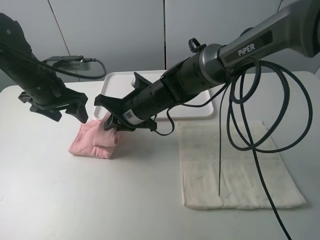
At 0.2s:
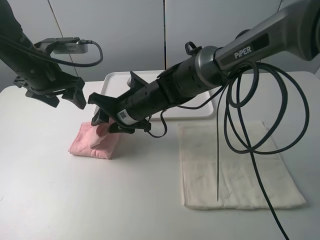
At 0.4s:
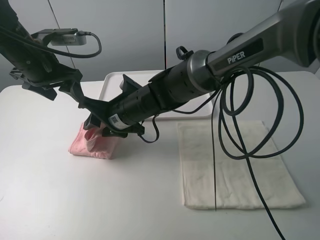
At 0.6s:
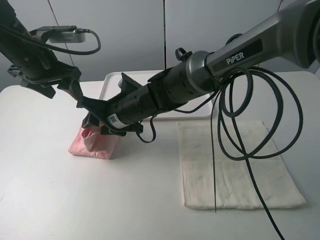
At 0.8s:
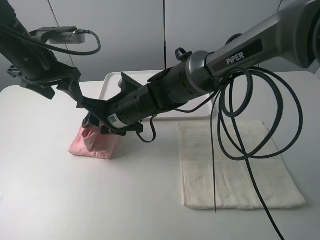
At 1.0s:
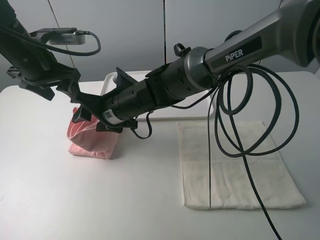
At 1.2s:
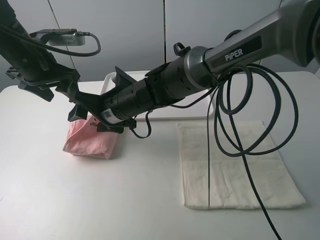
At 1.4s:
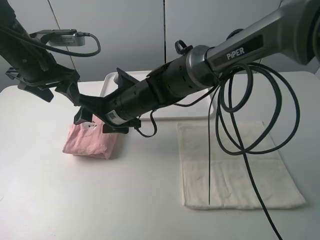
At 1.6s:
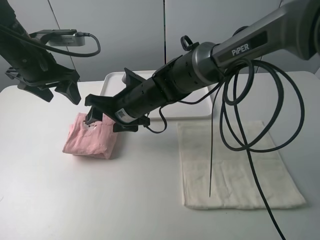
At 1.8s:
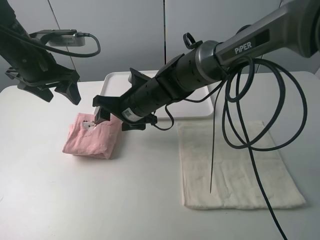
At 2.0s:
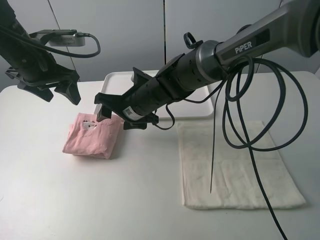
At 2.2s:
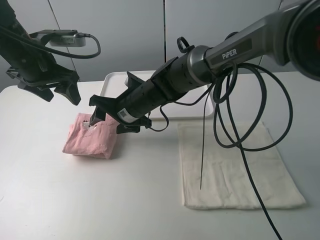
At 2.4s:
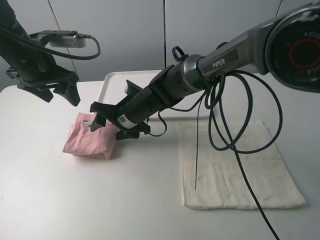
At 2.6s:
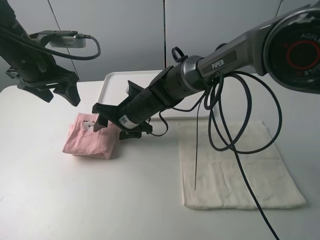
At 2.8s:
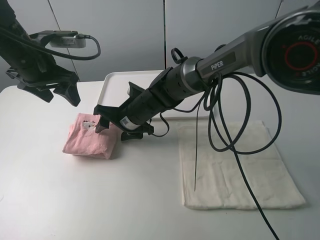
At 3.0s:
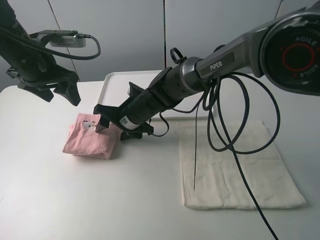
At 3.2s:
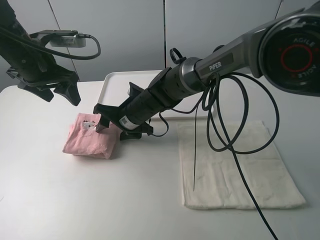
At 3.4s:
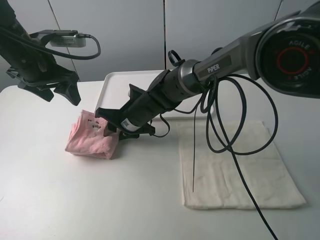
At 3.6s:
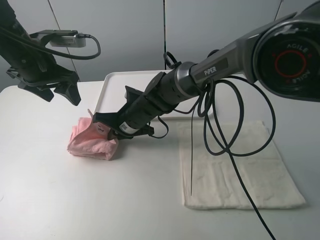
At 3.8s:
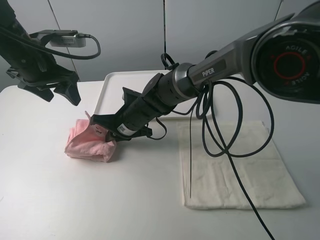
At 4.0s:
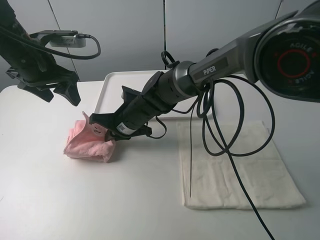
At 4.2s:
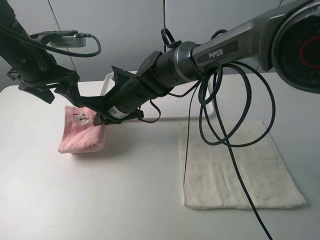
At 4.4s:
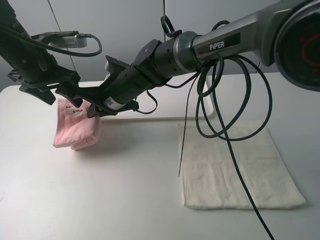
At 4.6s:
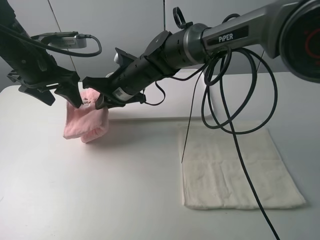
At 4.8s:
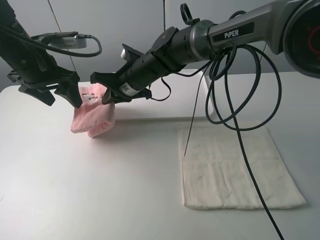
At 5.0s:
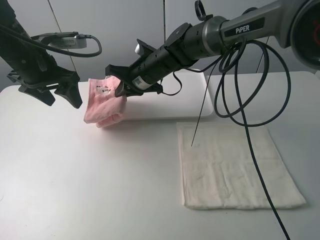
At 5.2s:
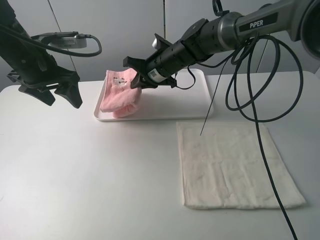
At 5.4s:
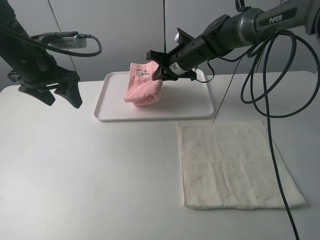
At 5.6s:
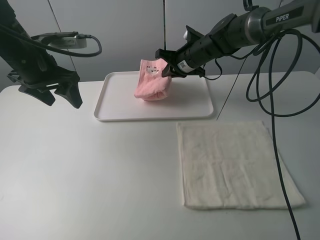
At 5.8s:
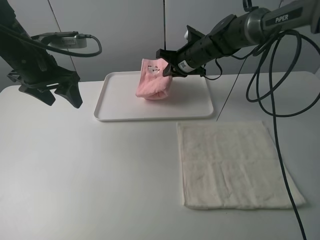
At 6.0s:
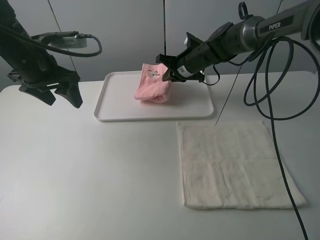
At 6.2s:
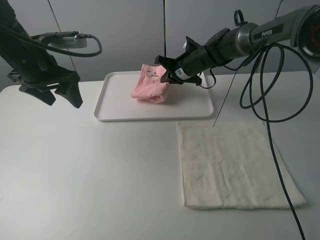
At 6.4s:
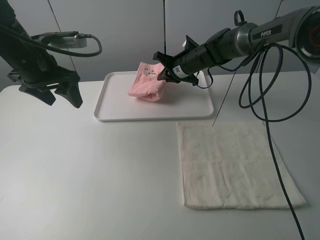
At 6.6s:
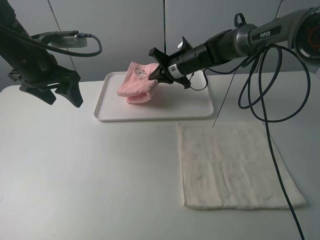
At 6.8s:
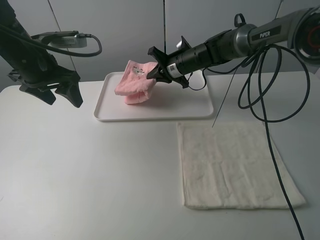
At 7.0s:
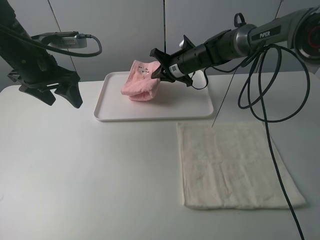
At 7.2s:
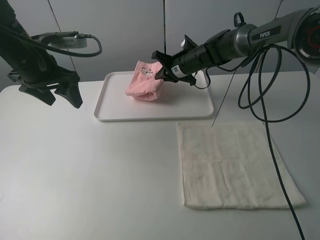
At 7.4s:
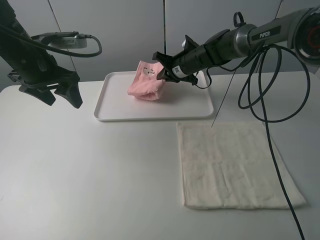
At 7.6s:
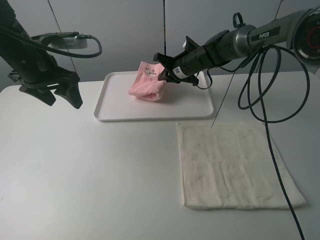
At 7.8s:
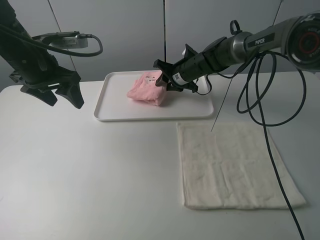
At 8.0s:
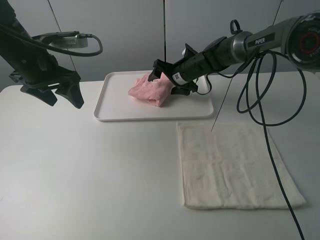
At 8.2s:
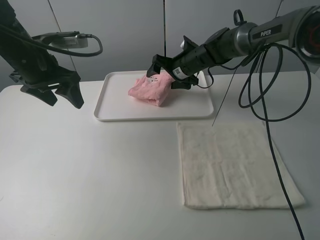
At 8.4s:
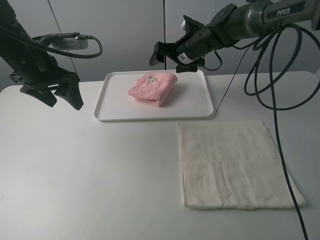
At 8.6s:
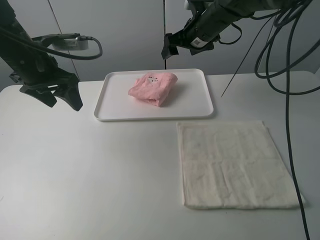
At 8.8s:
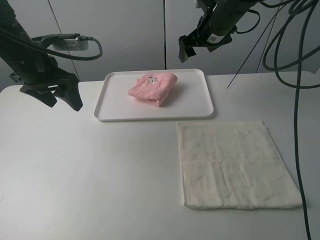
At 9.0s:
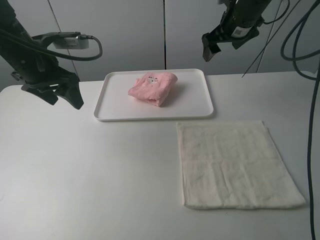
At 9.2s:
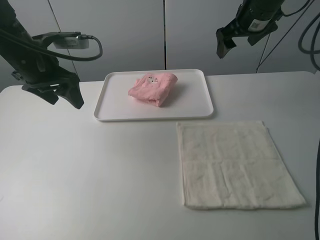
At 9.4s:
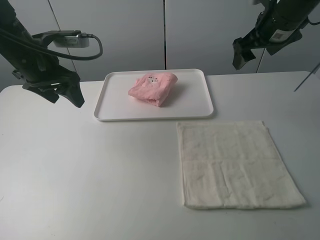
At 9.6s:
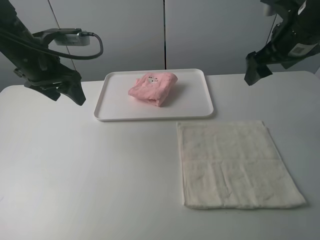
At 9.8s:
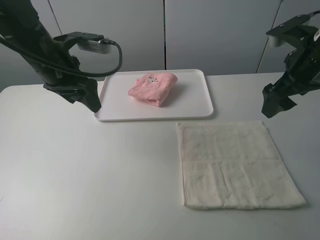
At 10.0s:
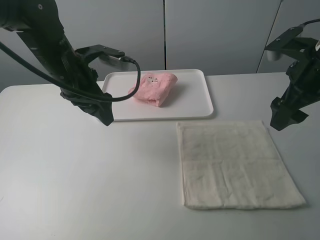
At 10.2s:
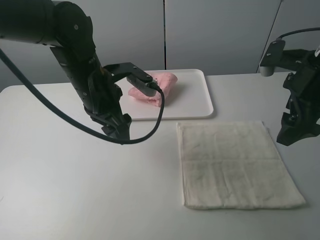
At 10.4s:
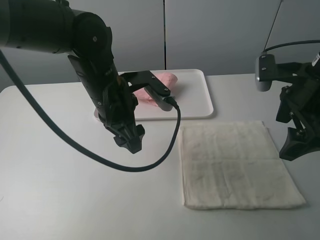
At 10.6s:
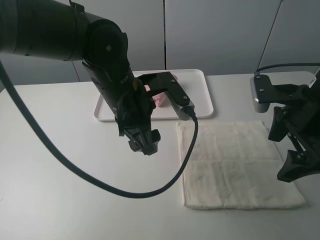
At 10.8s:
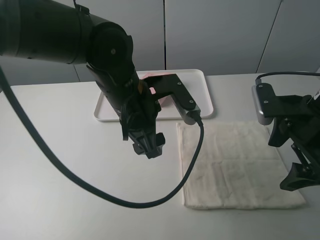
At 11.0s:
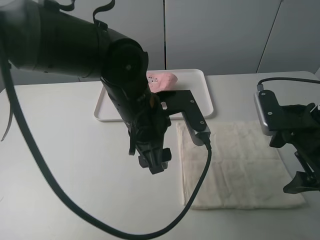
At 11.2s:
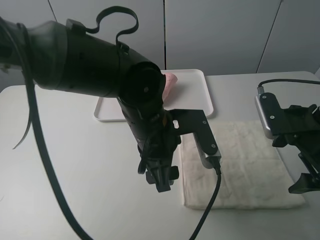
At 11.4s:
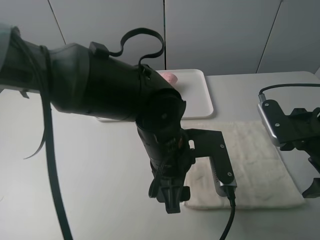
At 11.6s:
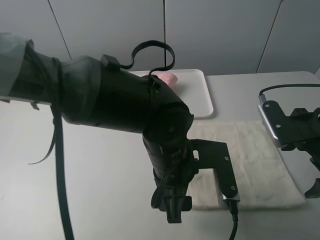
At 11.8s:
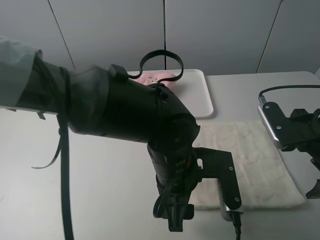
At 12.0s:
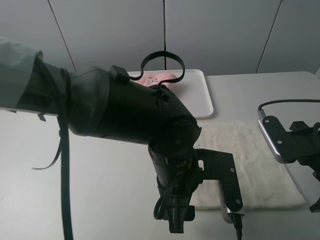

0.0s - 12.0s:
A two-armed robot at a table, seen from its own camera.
Task of the whole recording: fold one of the towels by two grippers and place it on the tray,then fold another towel by two grippers and place it on the folded towel.
Step, 1.4s - 3.6s: Grasp the pink towel with the right gripper.
Step, 3.8s - 8.4s: Move the pink towel to the plate with the right gripper.
0.0s - 1.6s: The right gripper opens.
1.6s - 3.0s: The right gripper moves some 5 cm.
3.0s - 4.4s: The right gripper travels upward by about 5 cm, and closes its fingers.
4.4s - 6.0s: The right gripper is displaced to the right and forward by approximately 20 cm.
6.0s - 7.6s: The grippers make only small movements.
7.6s - 9.0s: The right gripper shifts about 20 cm upward and to the right, and opens.
9.0s - 10.4s: The right gripper travels backward by approximately 20 cm. Meanwhile the left gripper is displaced to the right by roughly 15 cm.
10.4s - 12.0s: The right gripper shifts approximately 10 cm backward and downward. Meanwhile the left gripper moves to the right, backward and downward, roughly 15 cm.

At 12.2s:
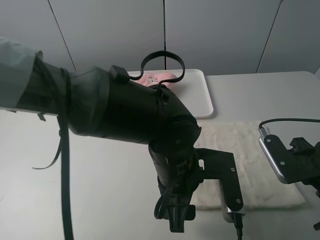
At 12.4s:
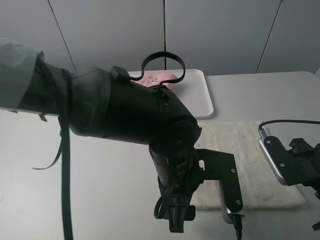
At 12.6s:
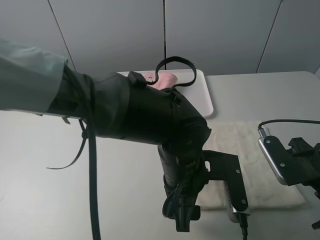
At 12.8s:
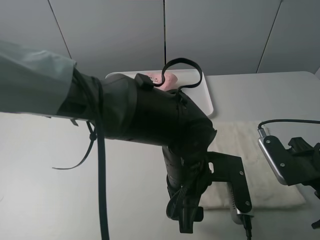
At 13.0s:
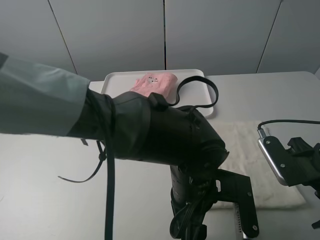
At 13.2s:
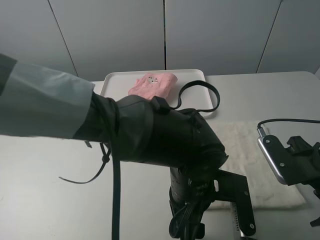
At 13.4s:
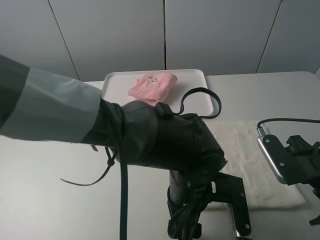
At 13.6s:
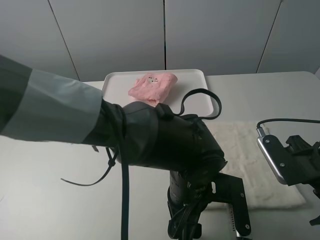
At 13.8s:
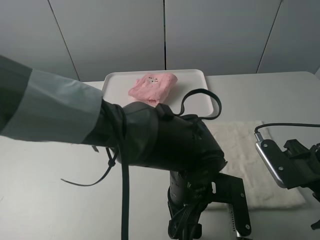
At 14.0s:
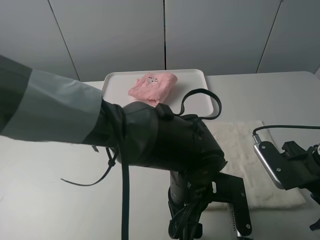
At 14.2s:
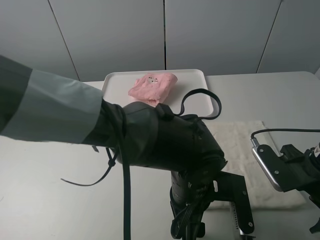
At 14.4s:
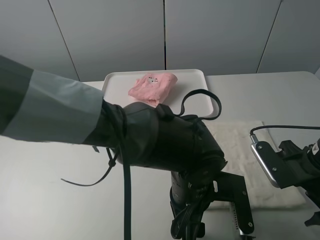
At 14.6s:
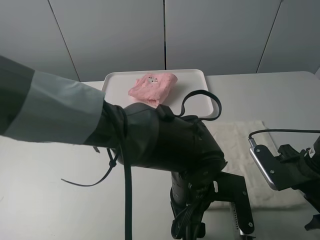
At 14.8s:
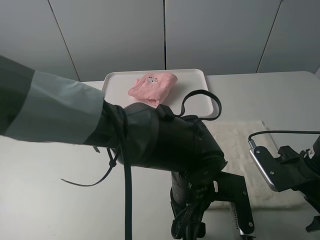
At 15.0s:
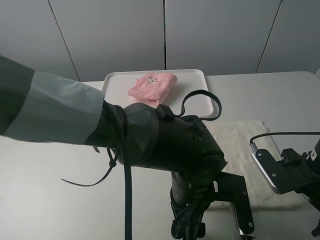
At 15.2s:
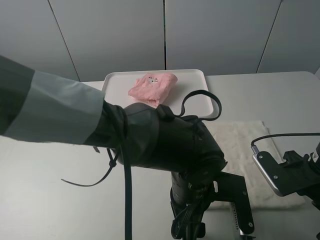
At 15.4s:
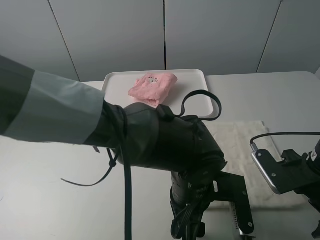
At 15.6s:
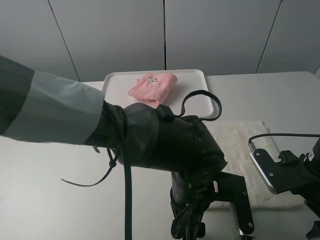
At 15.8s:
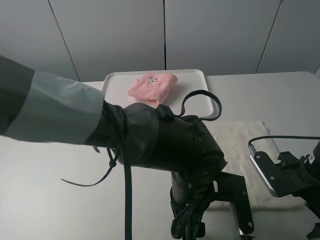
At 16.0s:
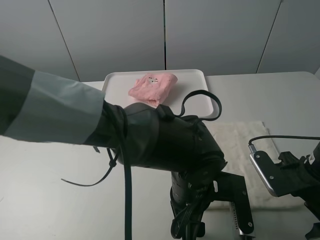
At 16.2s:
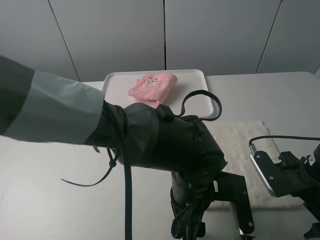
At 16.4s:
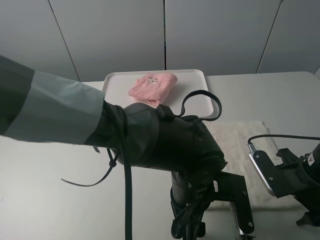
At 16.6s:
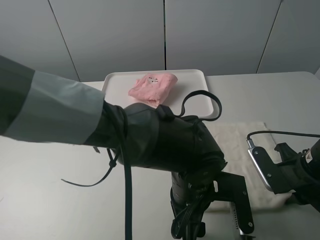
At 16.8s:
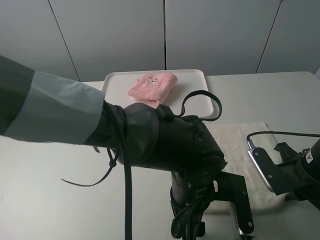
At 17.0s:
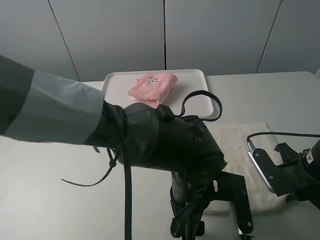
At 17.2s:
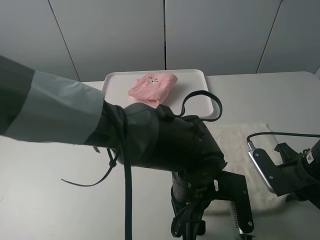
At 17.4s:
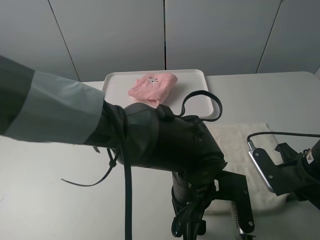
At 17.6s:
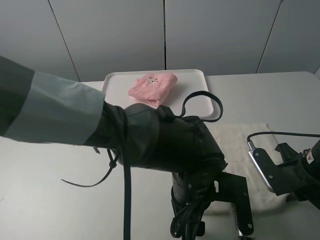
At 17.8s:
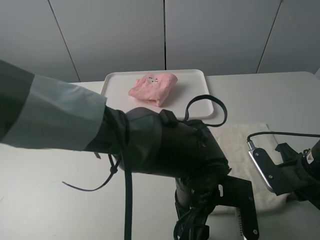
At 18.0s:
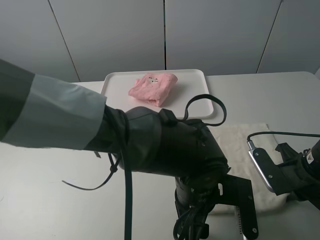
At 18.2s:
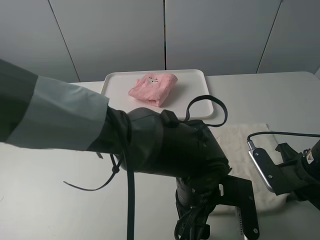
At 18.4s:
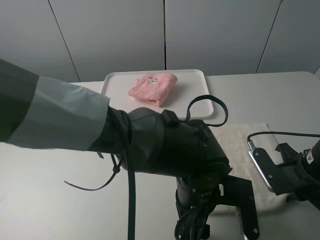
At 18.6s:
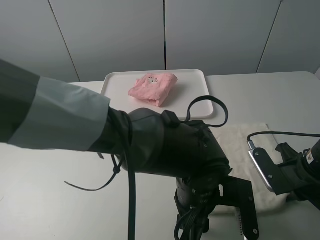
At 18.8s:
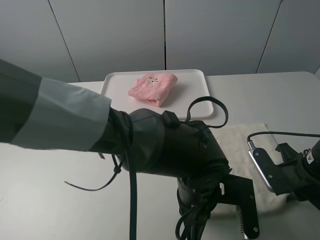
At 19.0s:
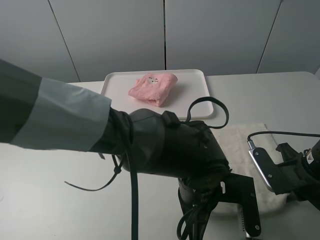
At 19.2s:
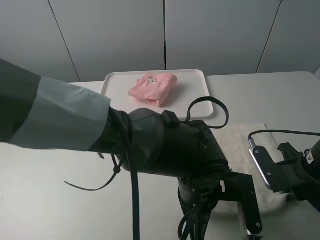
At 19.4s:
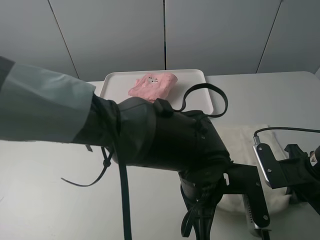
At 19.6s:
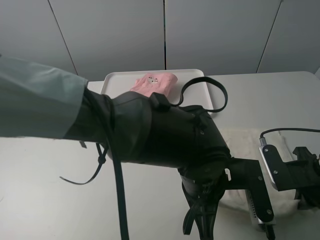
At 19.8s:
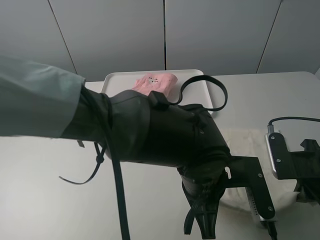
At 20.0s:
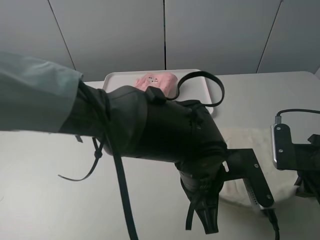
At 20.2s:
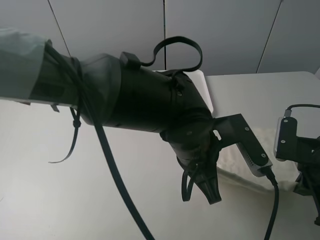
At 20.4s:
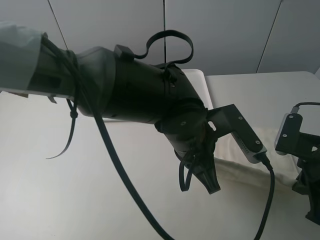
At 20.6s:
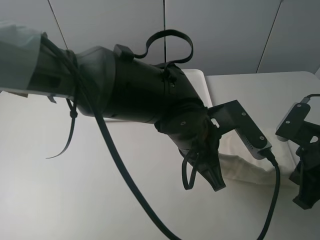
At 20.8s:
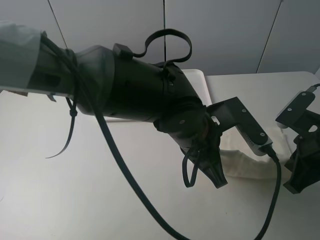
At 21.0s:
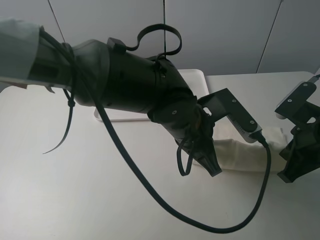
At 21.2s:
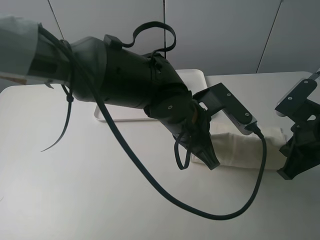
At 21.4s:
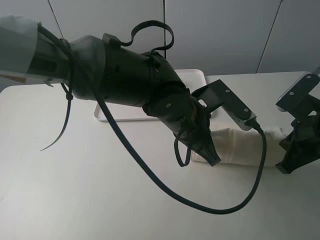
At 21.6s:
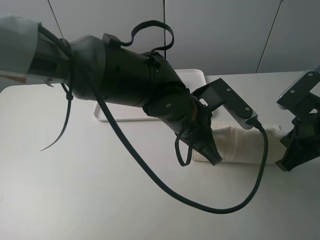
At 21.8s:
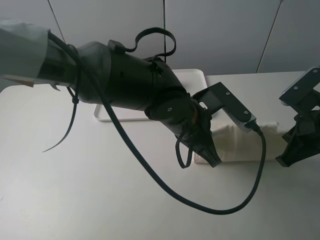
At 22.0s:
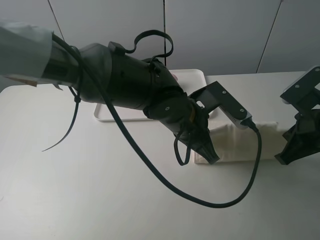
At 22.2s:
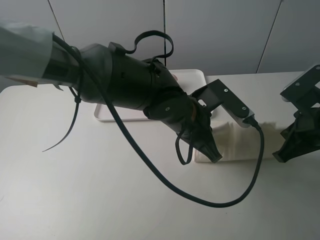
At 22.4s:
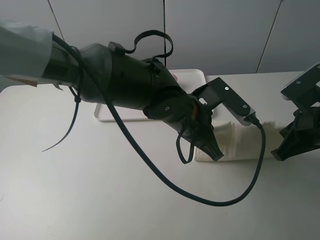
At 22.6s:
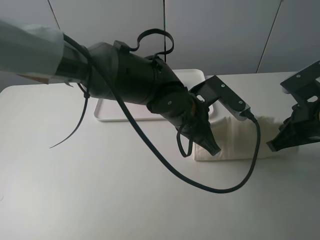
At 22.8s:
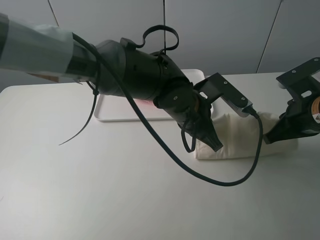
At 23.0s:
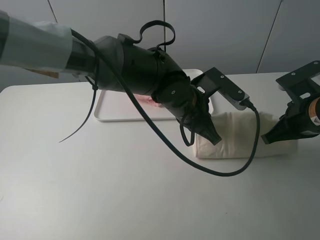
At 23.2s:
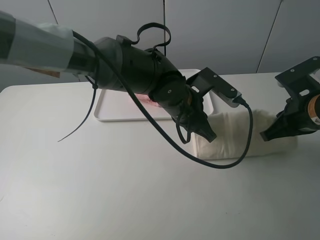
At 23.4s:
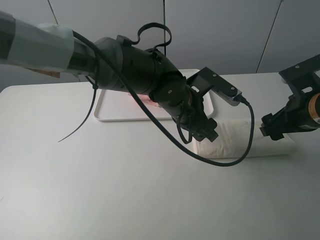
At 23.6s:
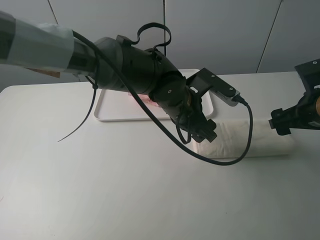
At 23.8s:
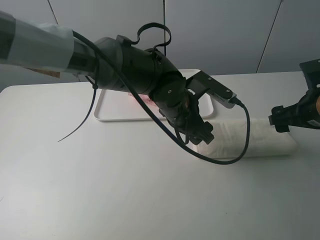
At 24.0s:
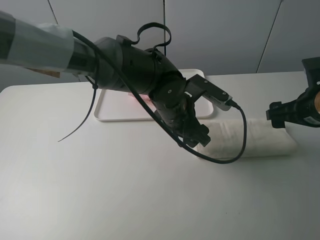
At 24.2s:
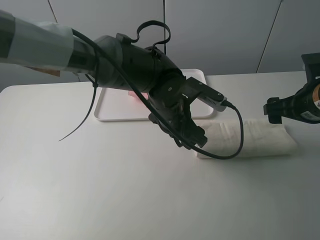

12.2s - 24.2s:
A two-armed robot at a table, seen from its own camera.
Task of the whole recording: fold one of the towels by two grippers and place it on the tray,then fold another towel by two grippers and place it on the folded towel.
Step, 12.2s - 19.0s: Grasp the white towel with the left gripper.
Step, 19.2s - 23.6s: Fold the white towel upwards with the left gripper.
13.8s - 15.2s: The grippers make only small movements.
15.2s - 16.6s: The right gripper closes up.
16.6s - 18.2s: The two grippers keep their place.
18.2s - 19.8s: The left gripper closes.
19.8s - 21.2s: The left gripper shifts about 10 cm forward.
21.2s - 22.6s: The grippers stay close to where they were, moving slightly.
22.6s - 24.2s: The left gripper opens up; the right gripper opens.
